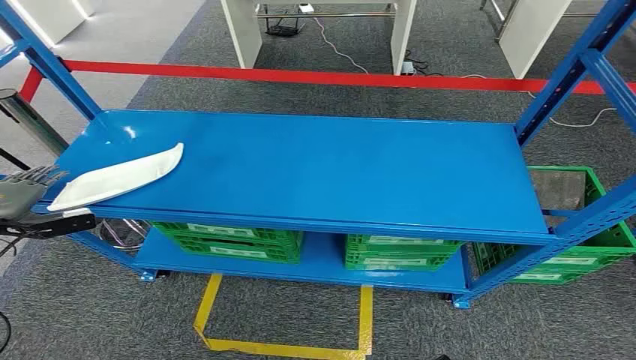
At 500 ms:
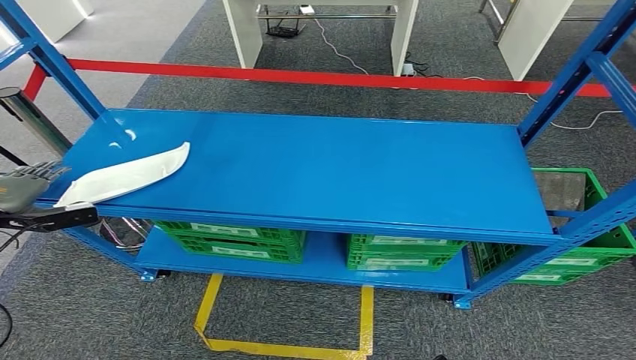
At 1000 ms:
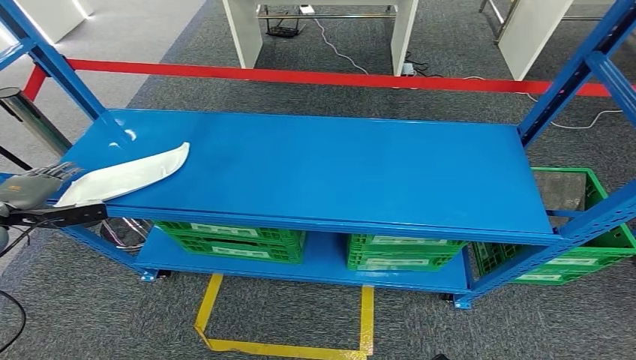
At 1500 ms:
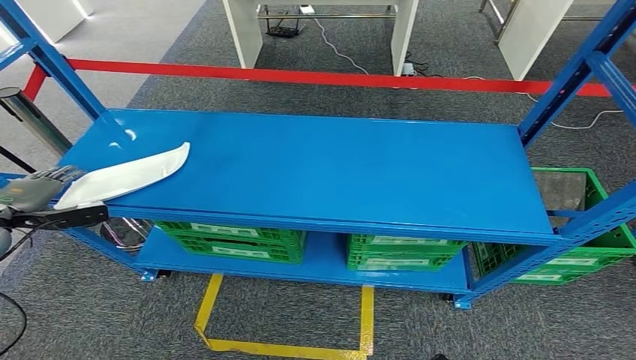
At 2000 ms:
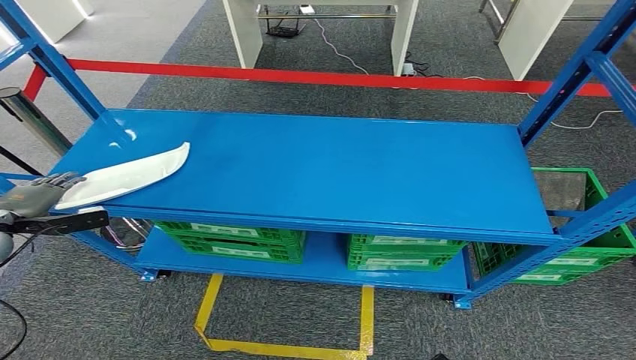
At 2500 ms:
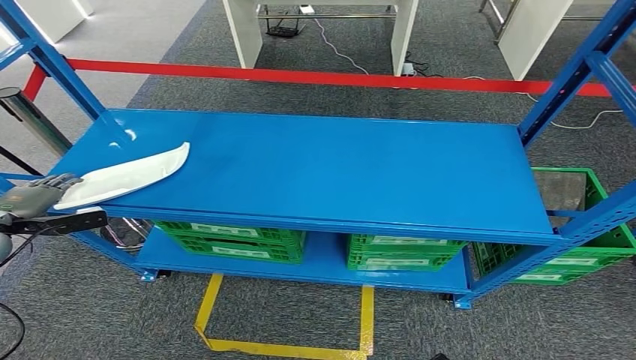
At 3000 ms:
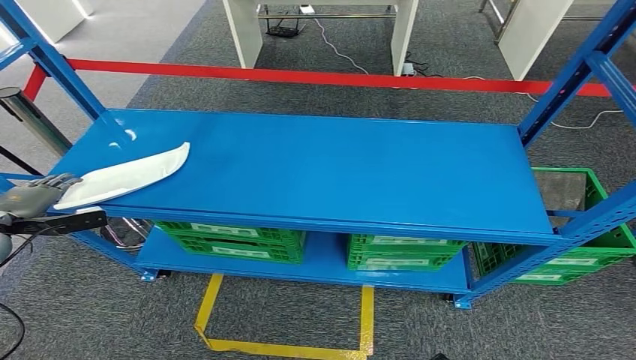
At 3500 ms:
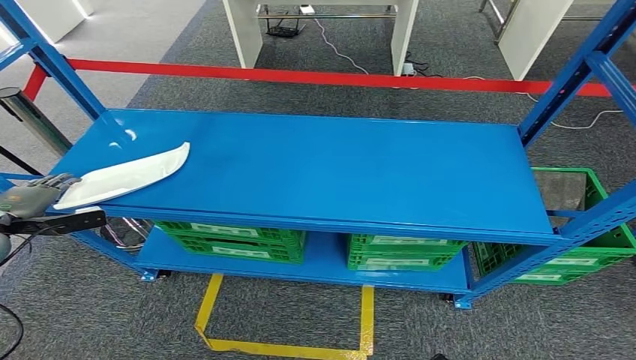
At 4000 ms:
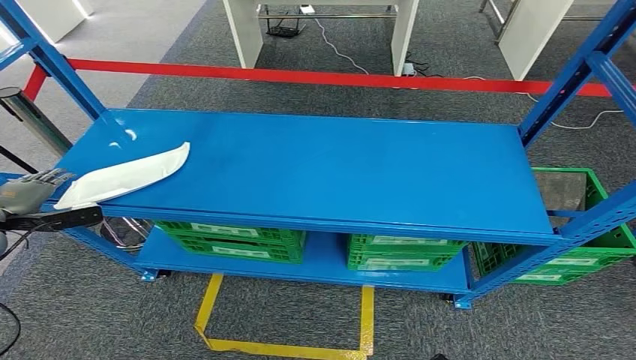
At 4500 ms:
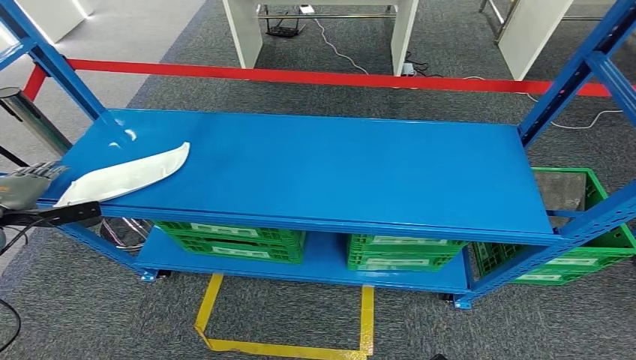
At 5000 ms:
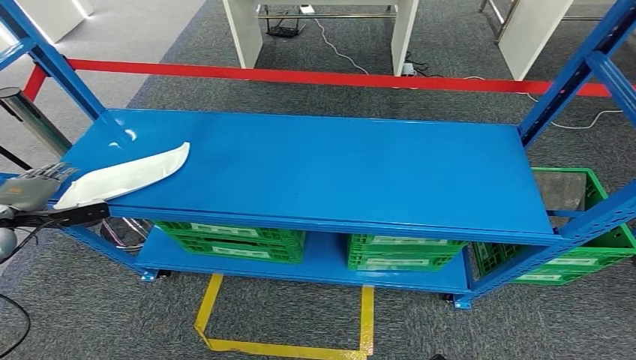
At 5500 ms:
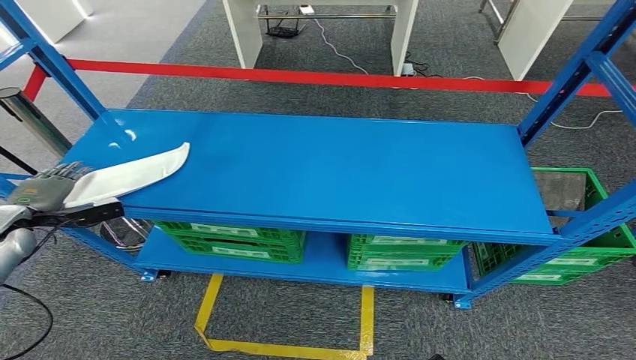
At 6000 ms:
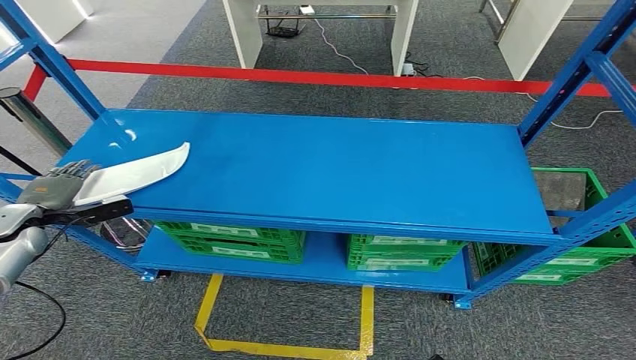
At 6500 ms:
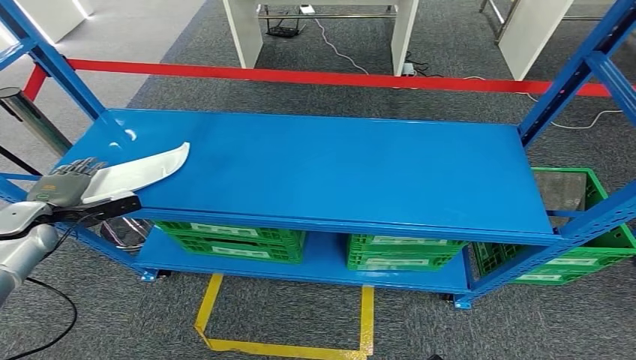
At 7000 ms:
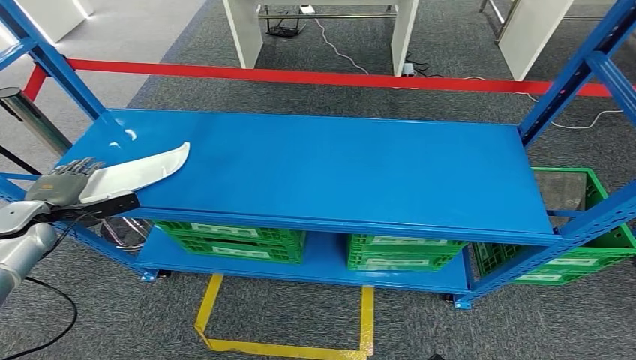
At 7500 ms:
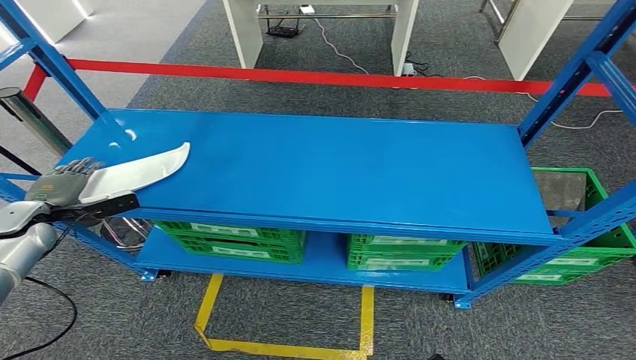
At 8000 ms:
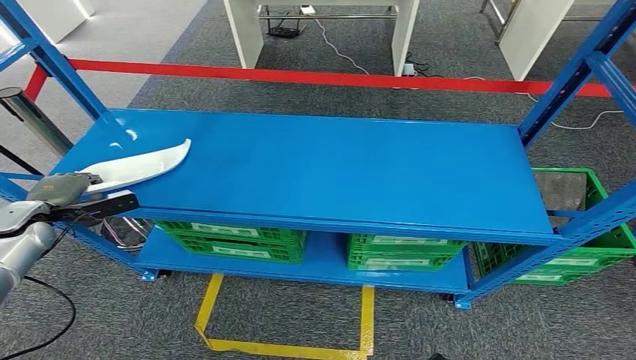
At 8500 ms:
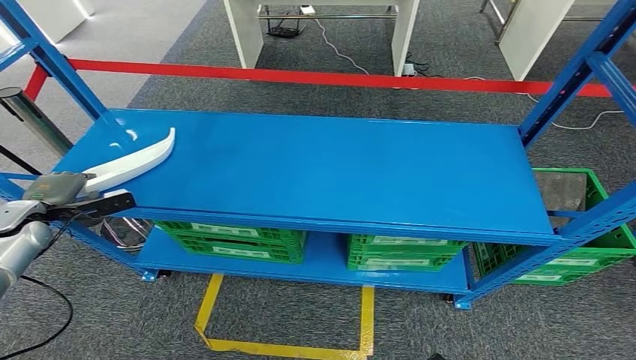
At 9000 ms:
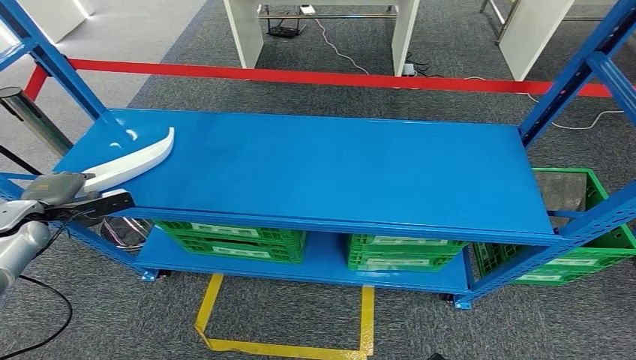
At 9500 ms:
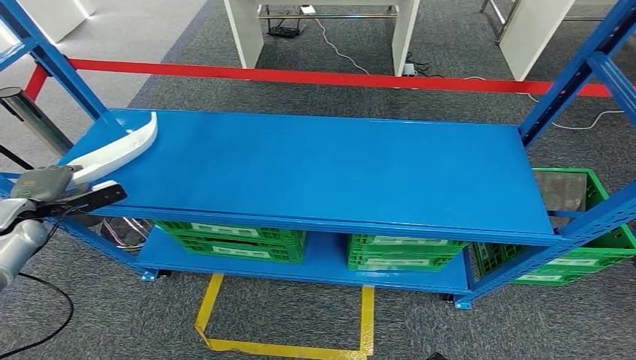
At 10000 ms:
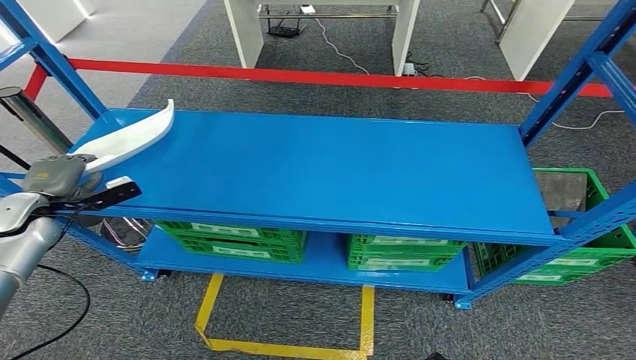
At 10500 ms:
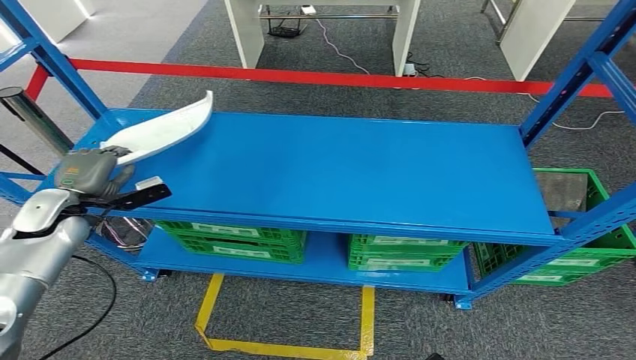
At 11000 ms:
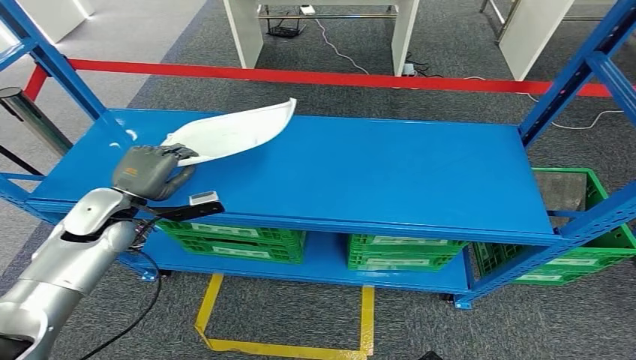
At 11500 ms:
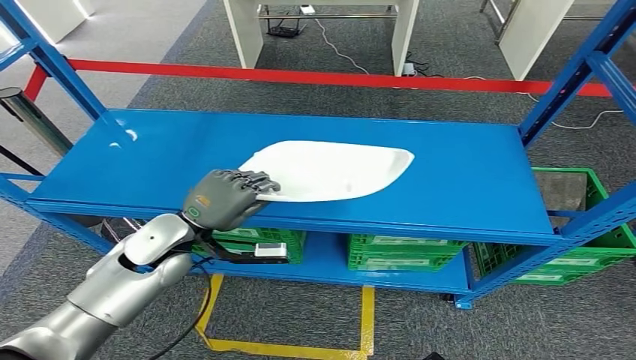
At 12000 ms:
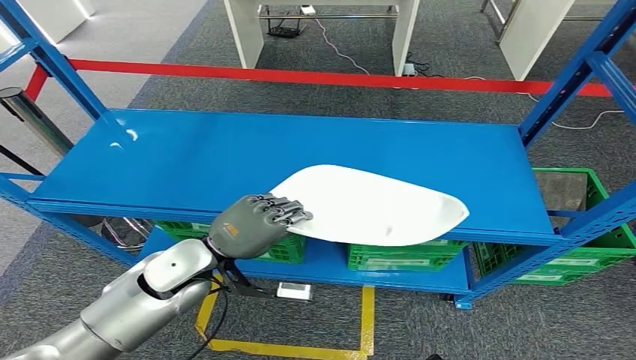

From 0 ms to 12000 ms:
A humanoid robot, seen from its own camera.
Step, from 0 ms to 10000 ms: Pick up the small component from the shelf.
From 2000 ms to 4000 ms: Neither hand changes place.
From 4000 ms to 6000 ms: The left hand ends up some 5 cm from where it was.
From 6000 ms to 8000 ms: Both hands stay about where they are.
From 8000 ms to 10000 ms: The hands move only a little.
From 10000 ms to 12000 ms: The left hand shifts some 30 cm to the right.

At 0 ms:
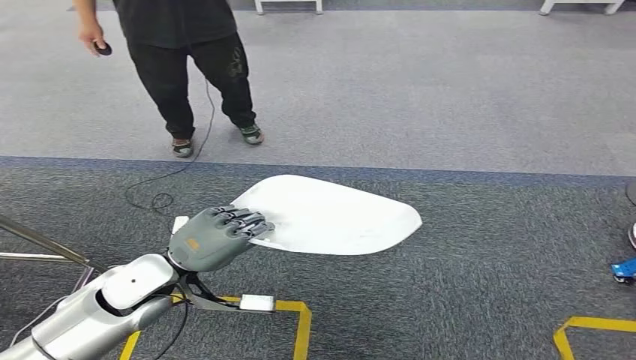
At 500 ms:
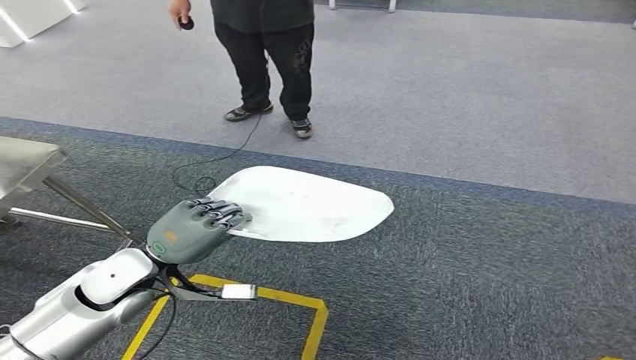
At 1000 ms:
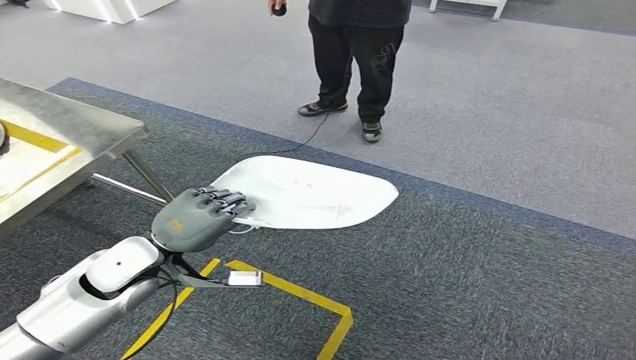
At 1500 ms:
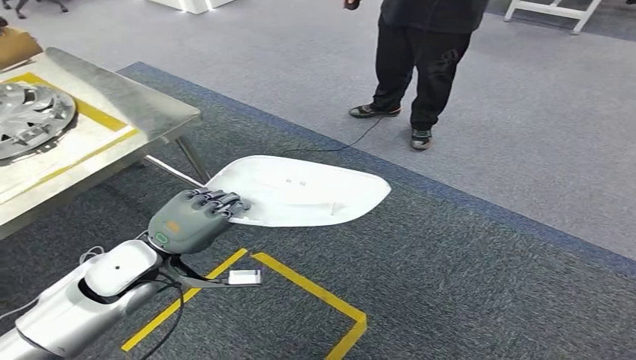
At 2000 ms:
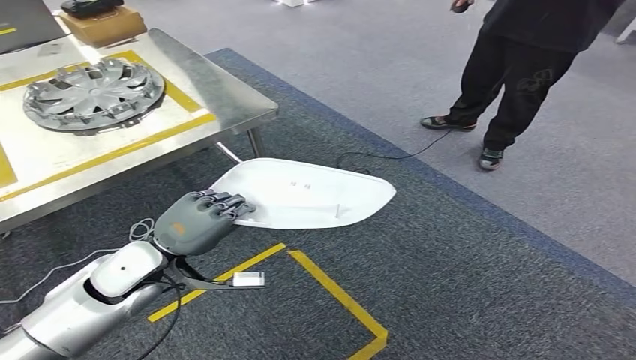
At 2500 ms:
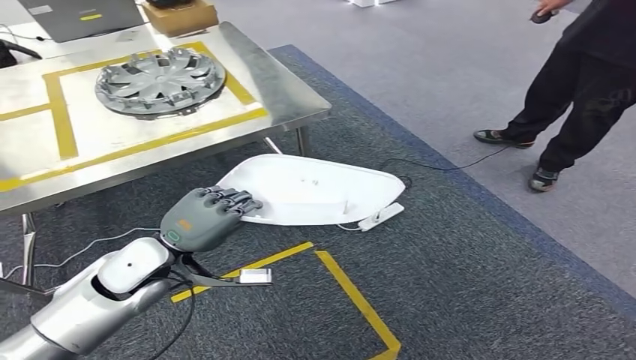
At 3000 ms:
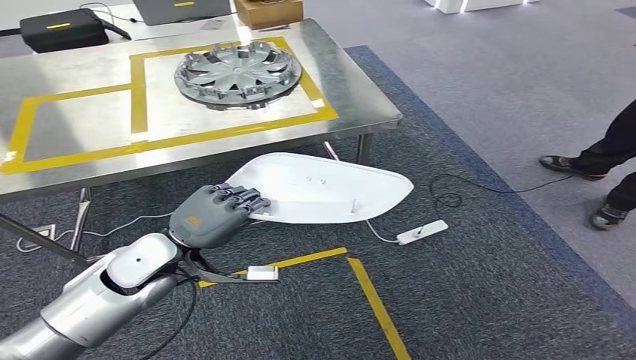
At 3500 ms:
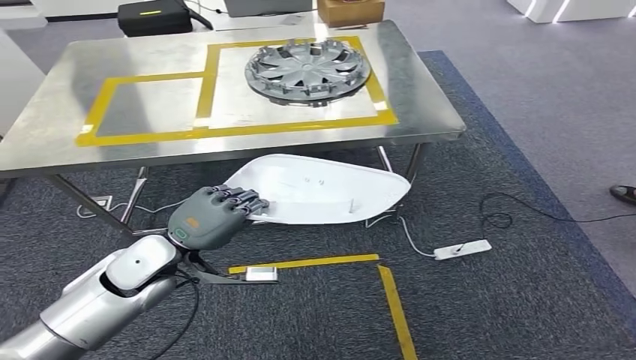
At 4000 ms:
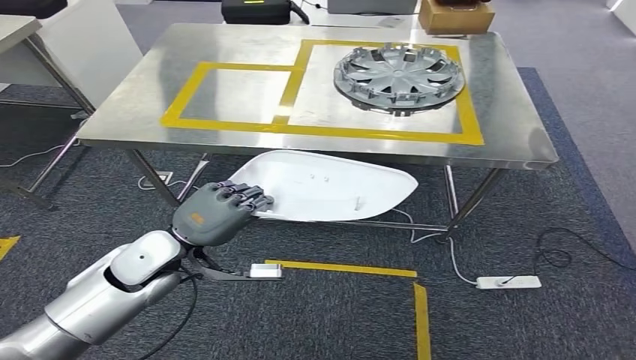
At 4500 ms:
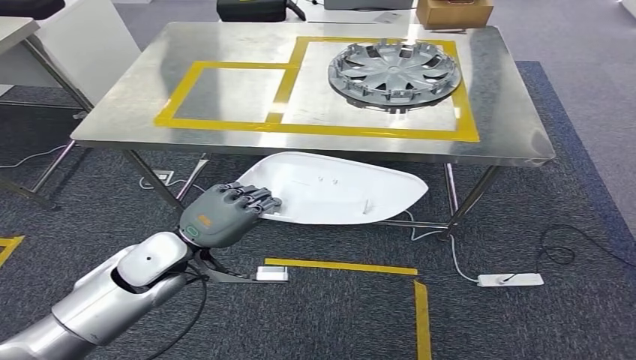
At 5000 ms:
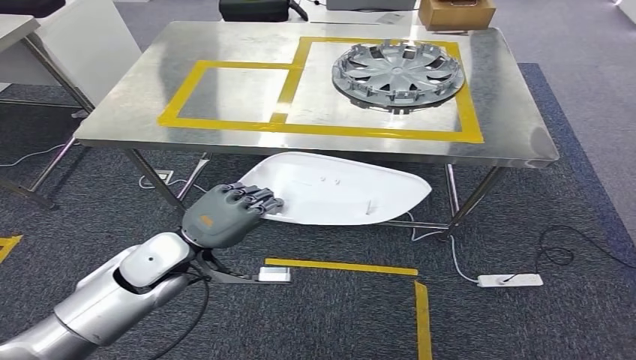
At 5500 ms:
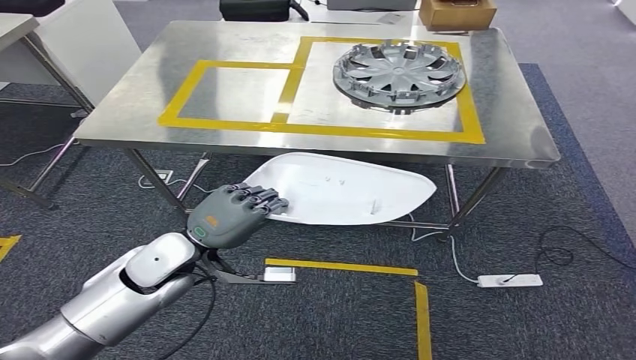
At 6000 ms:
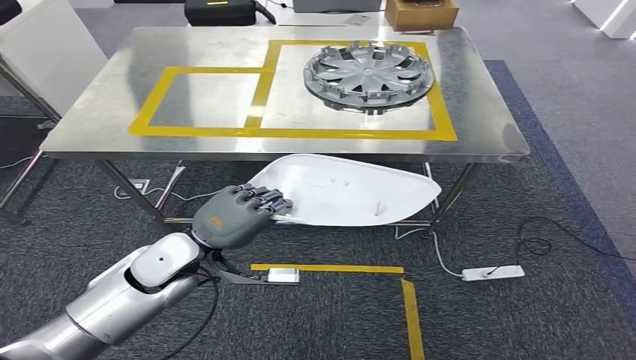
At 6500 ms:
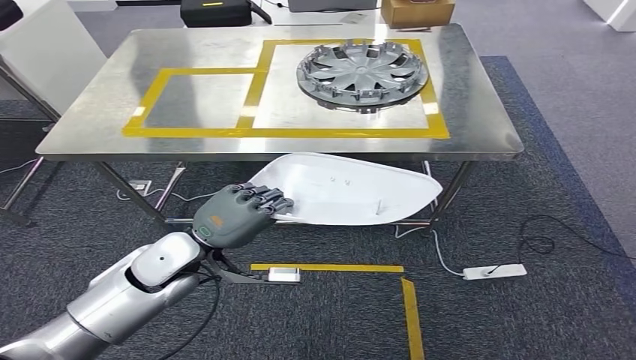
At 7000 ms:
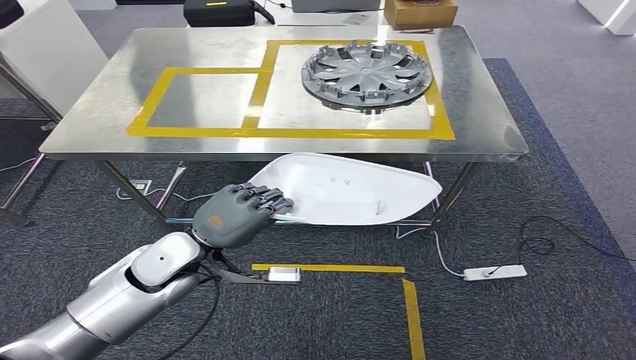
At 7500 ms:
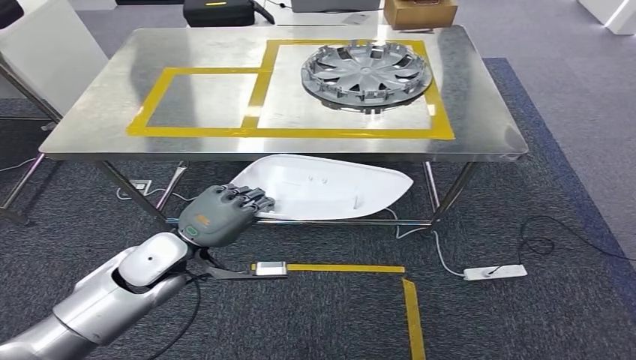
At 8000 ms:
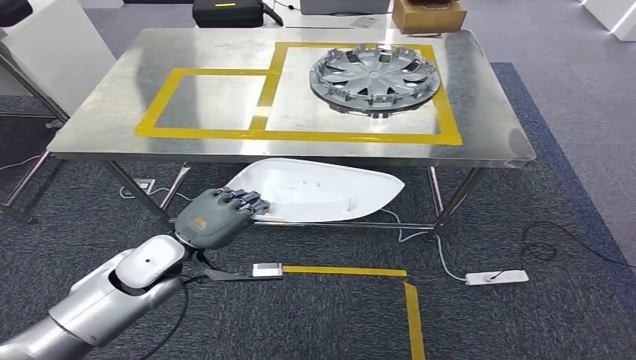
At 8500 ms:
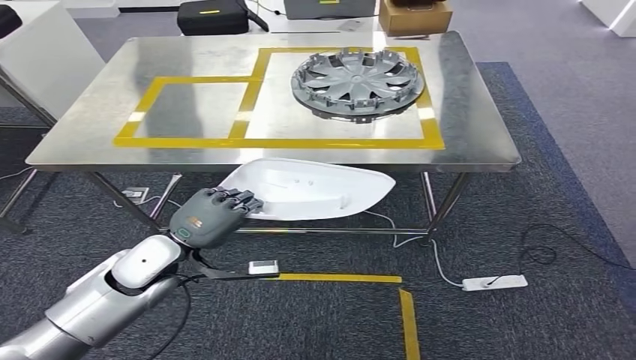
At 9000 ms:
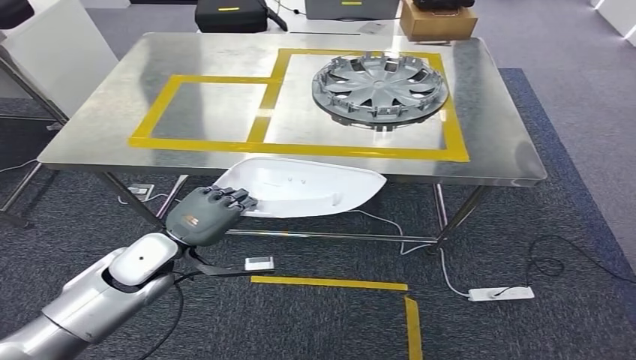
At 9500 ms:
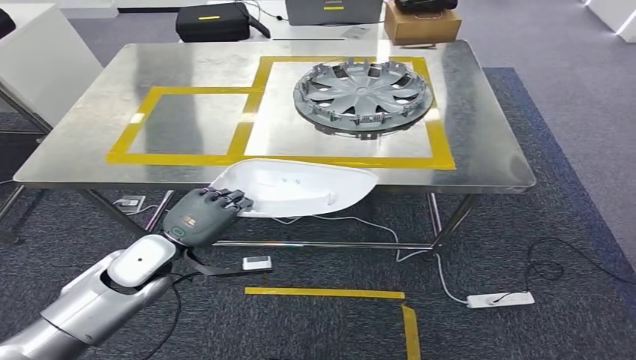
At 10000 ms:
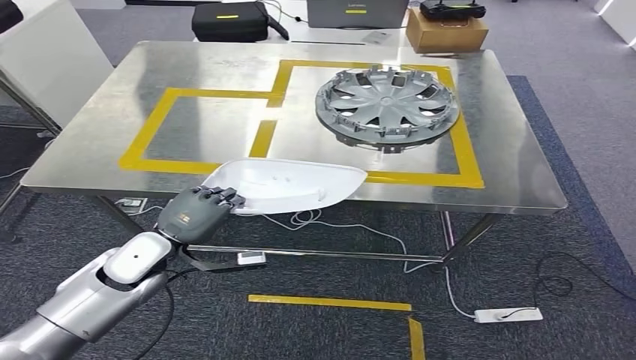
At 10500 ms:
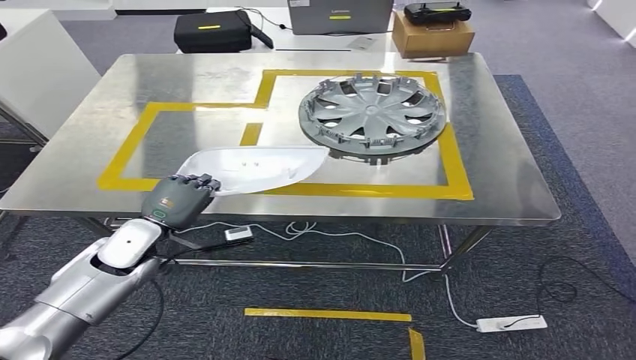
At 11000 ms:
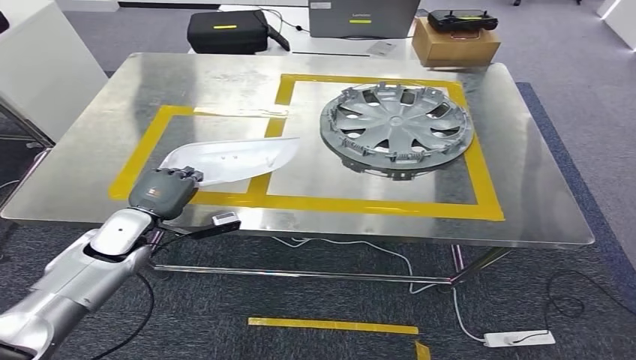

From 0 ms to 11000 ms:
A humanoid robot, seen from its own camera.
Step, from 0 ms to 4500 ms: Bring the small component to the front of the workbench.
